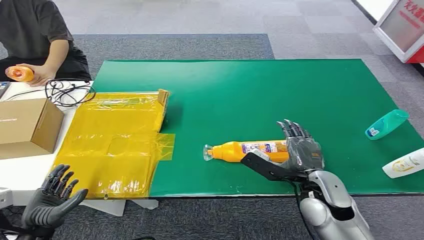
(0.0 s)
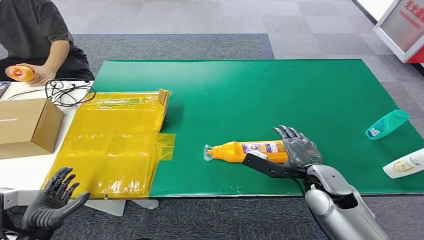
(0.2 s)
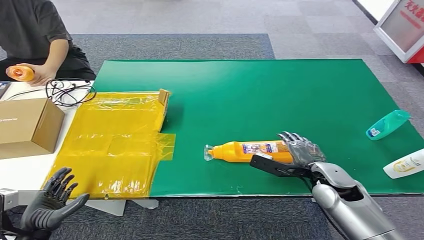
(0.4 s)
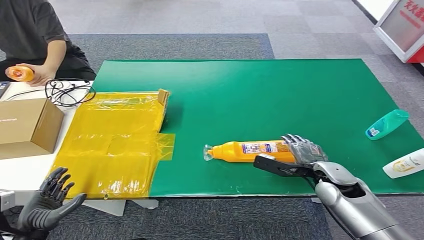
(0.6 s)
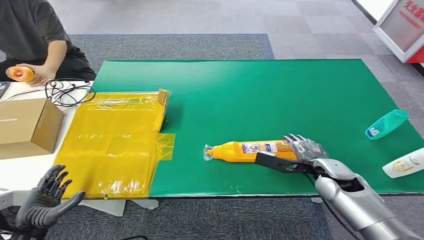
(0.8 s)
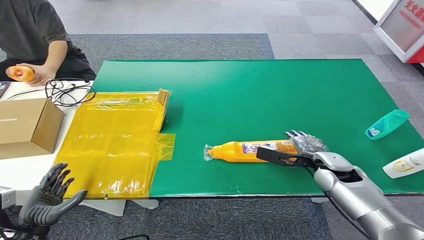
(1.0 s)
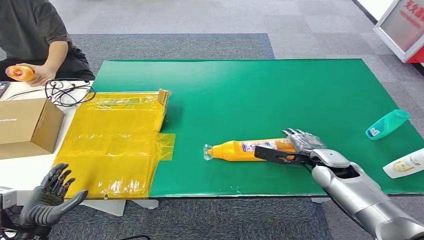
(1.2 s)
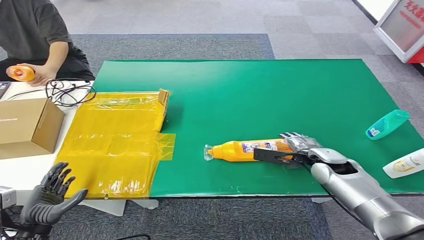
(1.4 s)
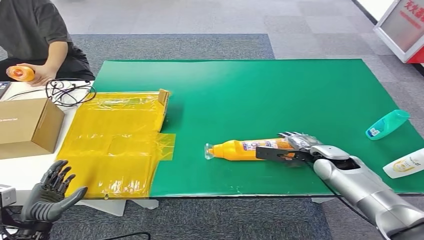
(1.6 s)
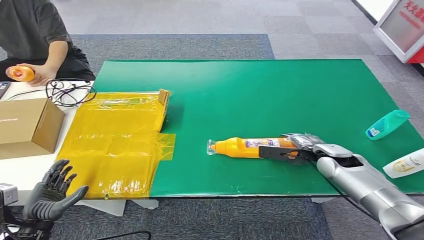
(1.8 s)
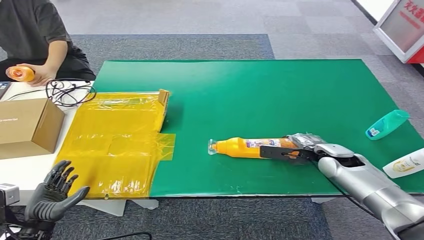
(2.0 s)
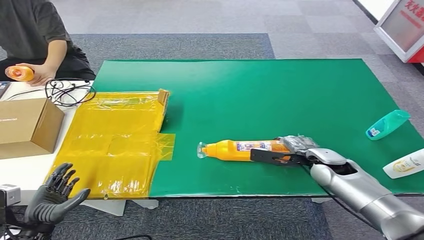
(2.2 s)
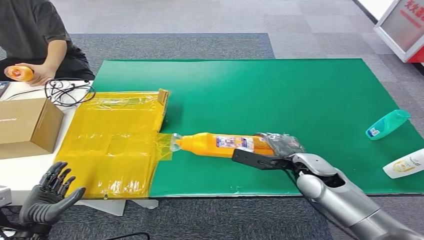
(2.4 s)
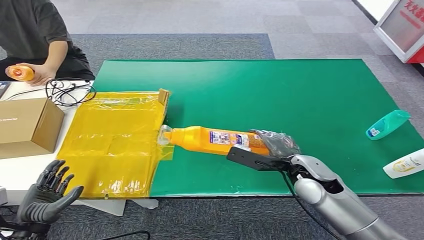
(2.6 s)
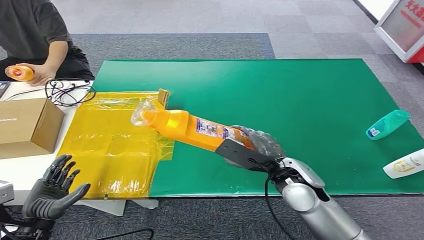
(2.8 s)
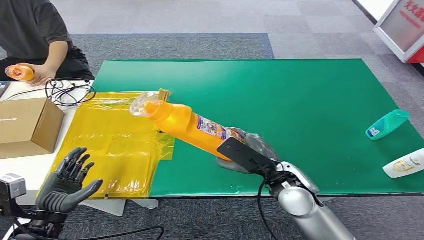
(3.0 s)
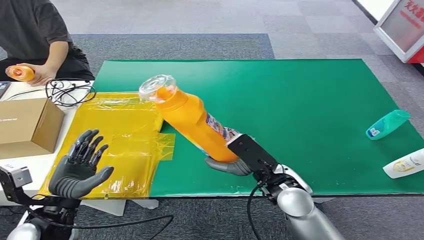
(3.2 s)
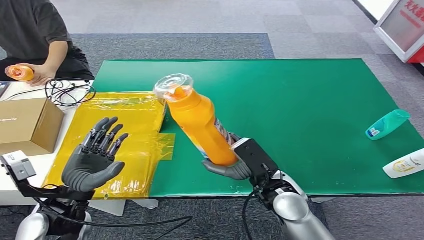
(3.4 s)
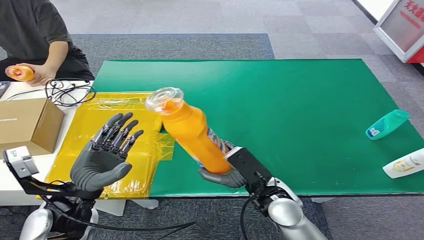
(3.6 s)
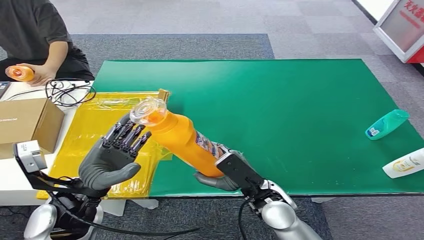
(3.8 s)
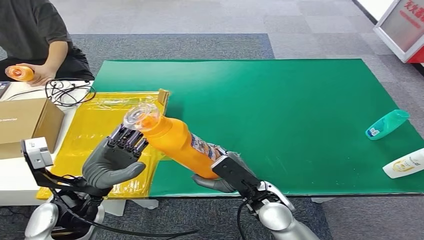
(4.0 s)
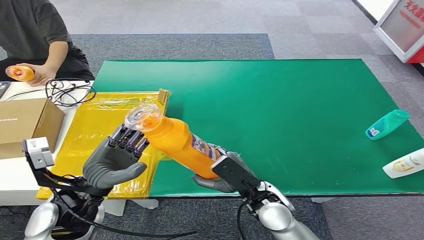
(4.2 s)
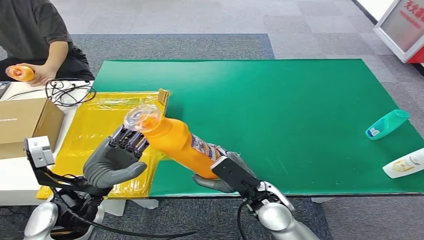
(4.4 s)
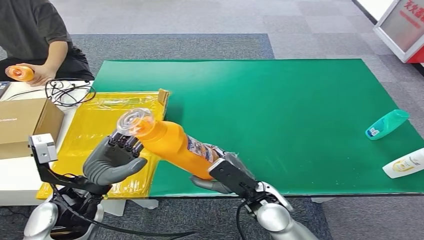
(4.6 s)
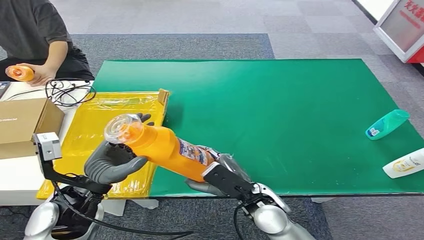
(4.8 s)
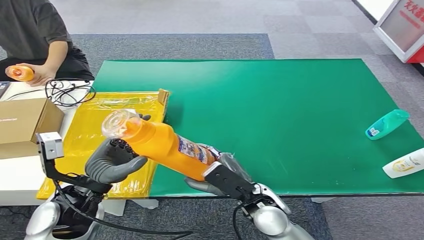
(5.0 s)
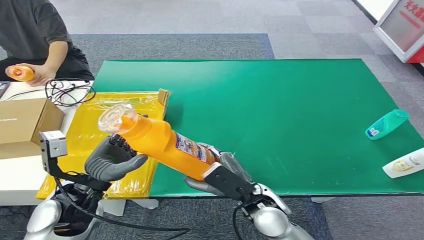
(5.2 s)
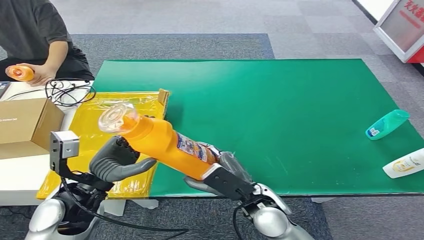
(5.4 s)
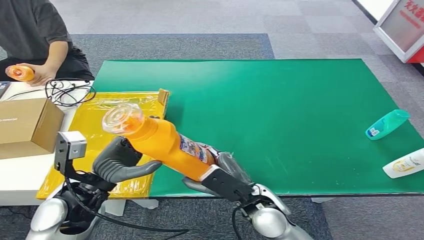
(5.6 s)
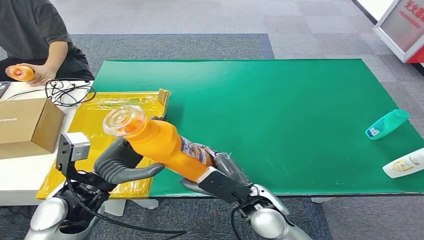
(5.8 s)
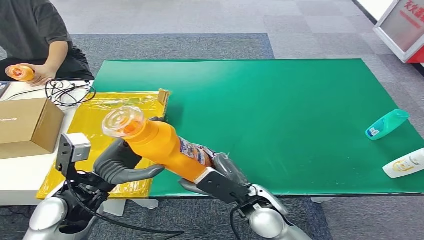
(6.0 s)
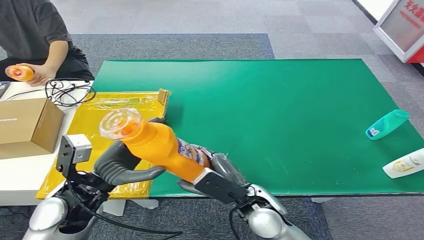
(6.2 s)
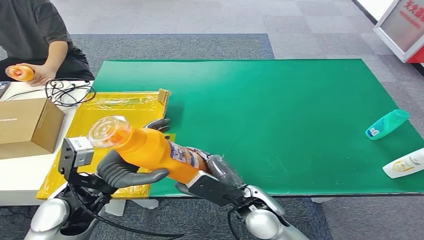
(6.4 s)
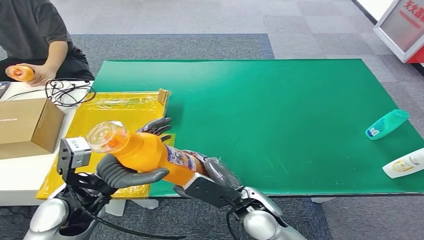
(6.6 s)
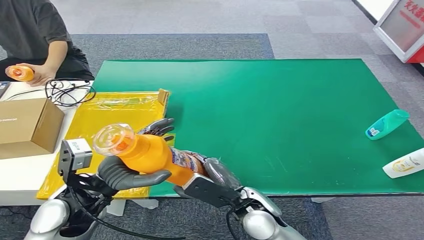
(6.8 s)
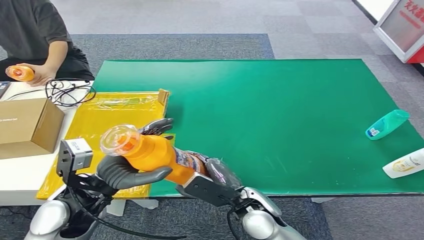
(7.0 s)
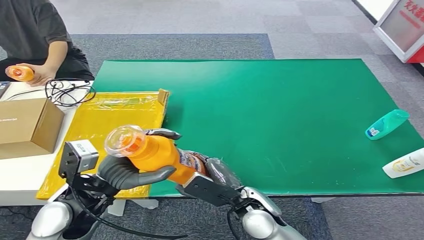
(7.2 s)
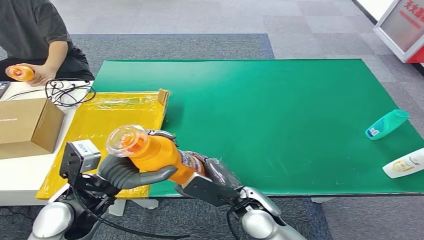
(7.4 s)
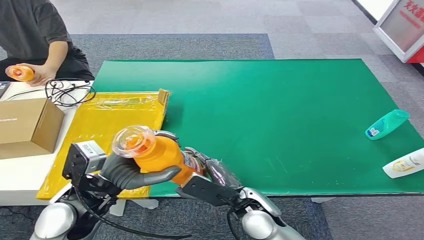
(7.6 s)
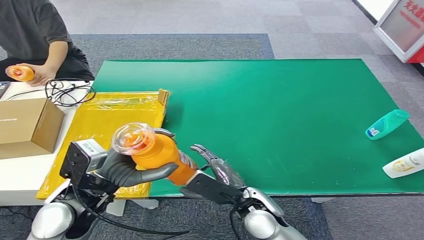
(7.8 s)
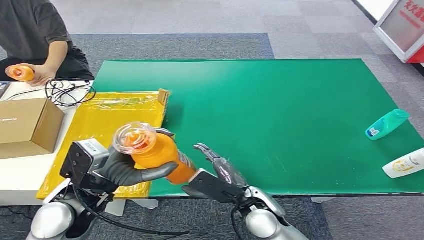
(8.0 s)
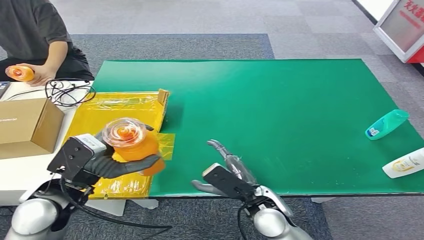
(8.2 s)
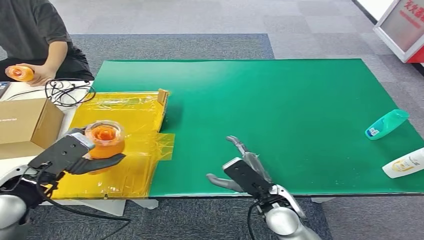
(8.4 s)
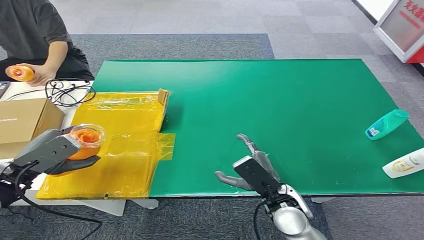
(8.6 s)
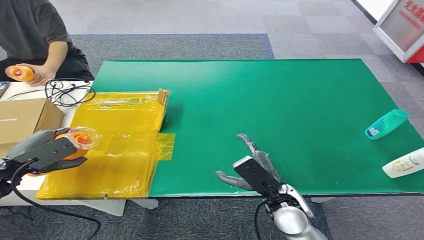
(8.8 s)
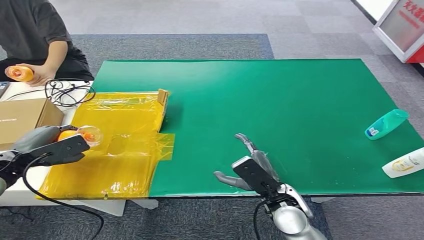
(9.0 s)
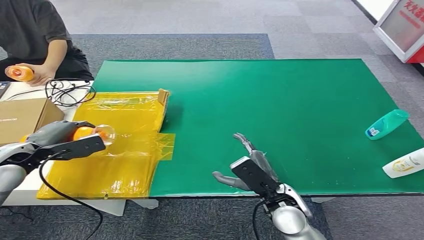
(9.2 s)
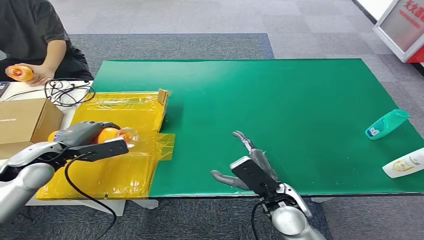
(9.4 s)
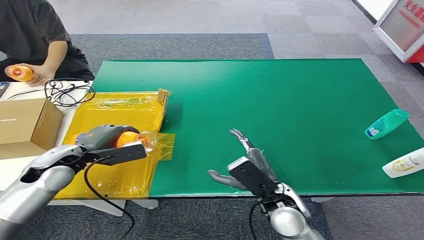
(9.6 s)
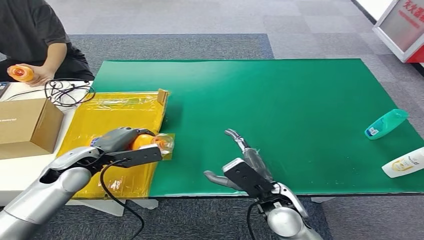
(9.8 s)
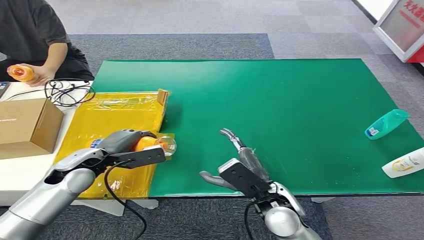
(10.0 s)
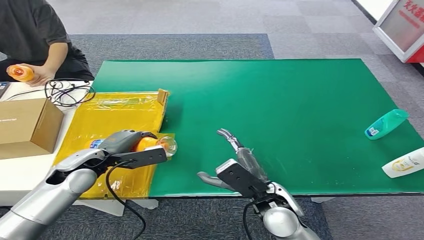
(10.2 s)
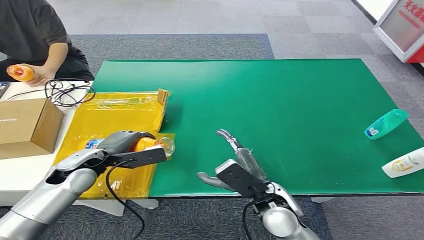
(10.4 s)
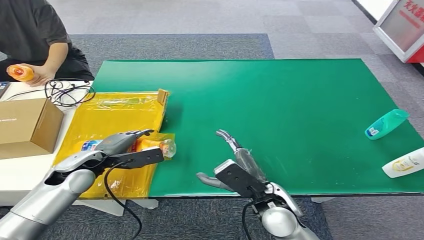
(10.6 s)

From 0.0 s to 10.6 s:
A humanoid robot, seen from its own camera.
Step, from 0.0 s to 2.4 s: Pick up the bottle from the table.
Step, from 2.8 s to 10.6 s: Turn the bottle to the front side.
From 1.6 s to 3.0 s: The right hand shifts about 15 cm to the left and backward. The left hand shifts by roughly 5 cm.
From 3.0 s to 4.6 s: The right hand goes approximately 5 cm downward, while the left hand goes about 15 cm forward, upward and to the right.
From 4.6 s to 6.0 s: The hands stay close to where they were, moving slightly.
From 6.0 s to 7.6 s: There are only small adjustments of the hands.
From 7.6 s to 9.0 s: The left hand heads to the left, covering roughly 25 cm. Meanwhile the right hand shifts approximately 5 cm to the right.
From 9.0 s to 10.6 s: The left hand moves to the right and downward, about 15 cm.
